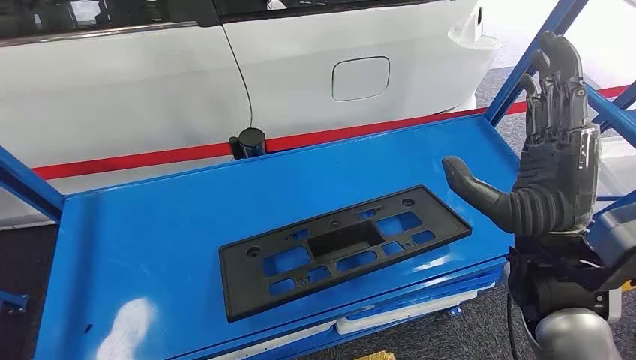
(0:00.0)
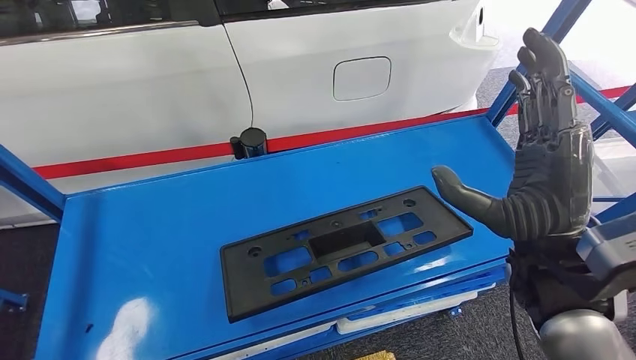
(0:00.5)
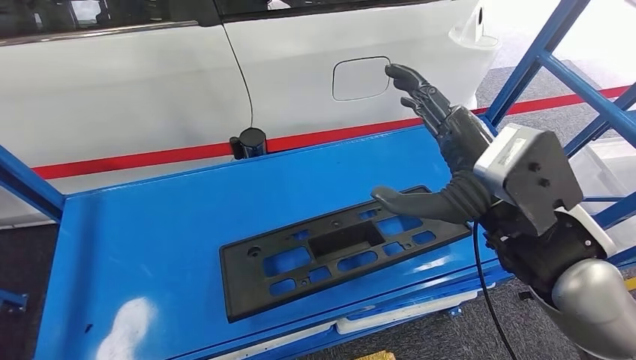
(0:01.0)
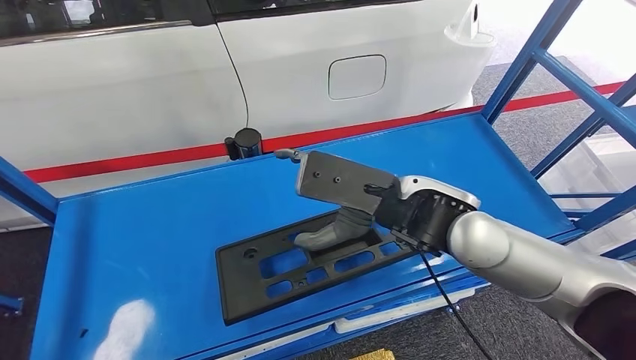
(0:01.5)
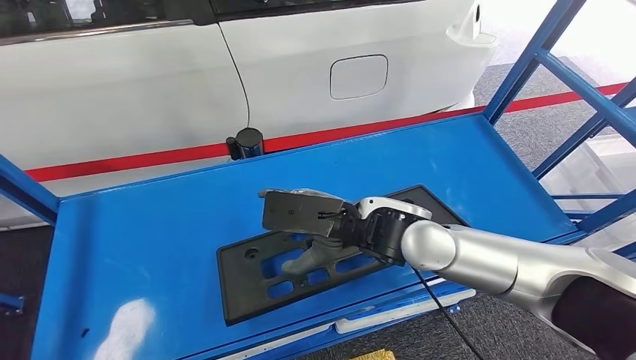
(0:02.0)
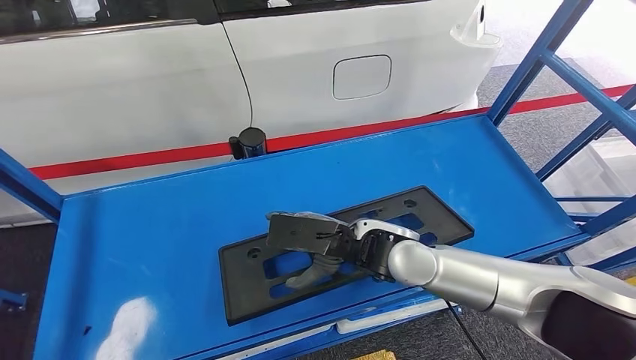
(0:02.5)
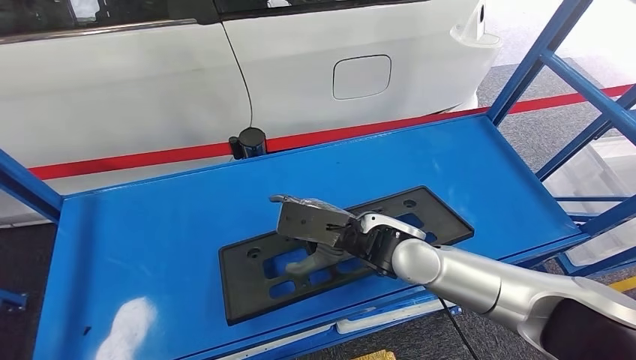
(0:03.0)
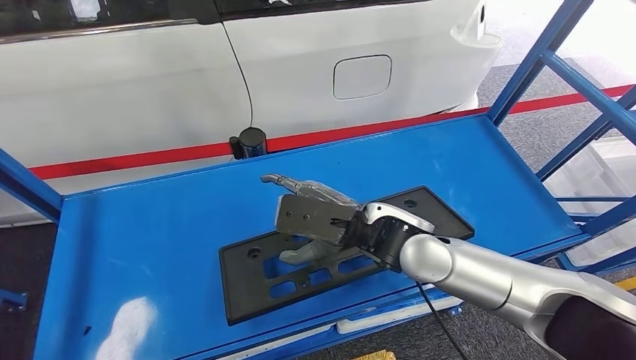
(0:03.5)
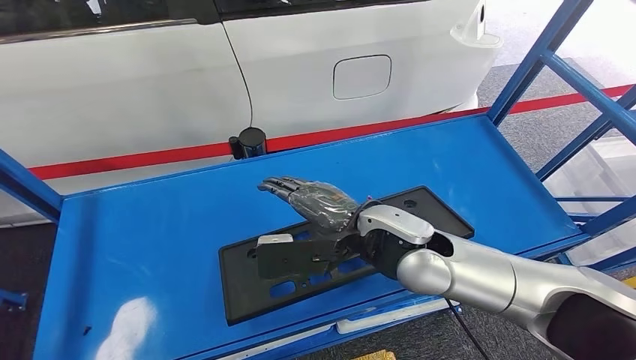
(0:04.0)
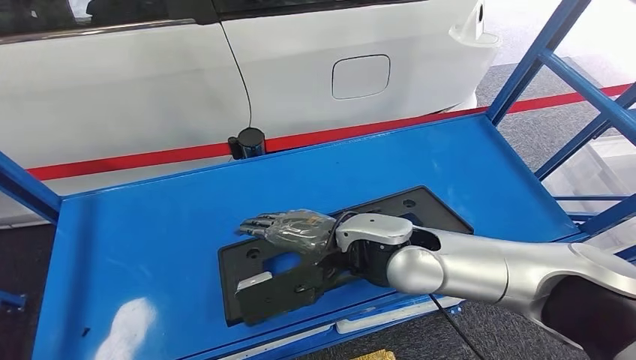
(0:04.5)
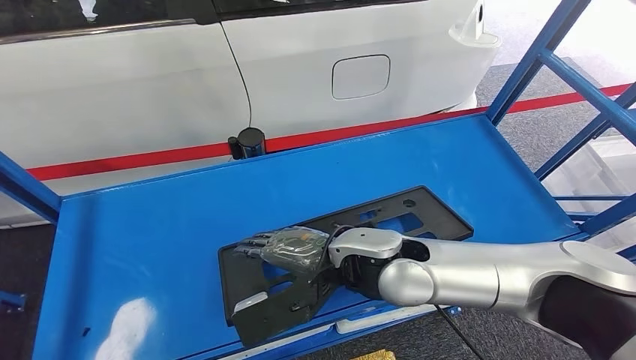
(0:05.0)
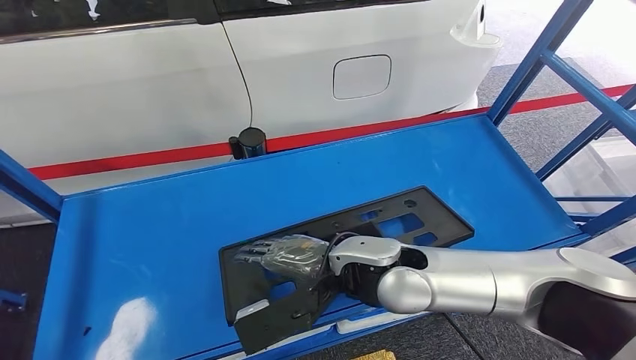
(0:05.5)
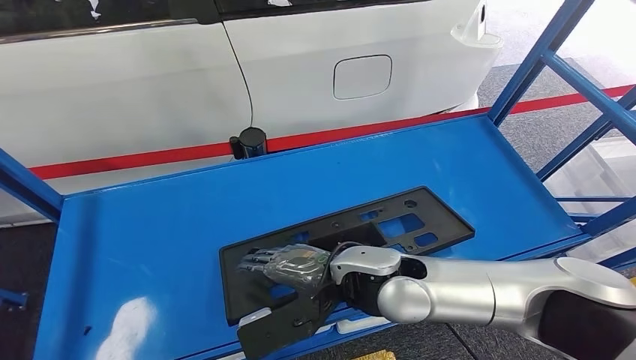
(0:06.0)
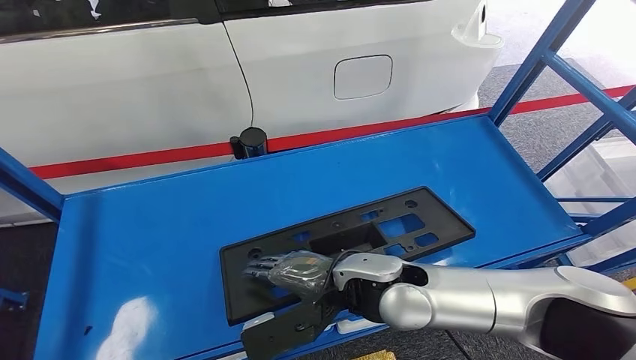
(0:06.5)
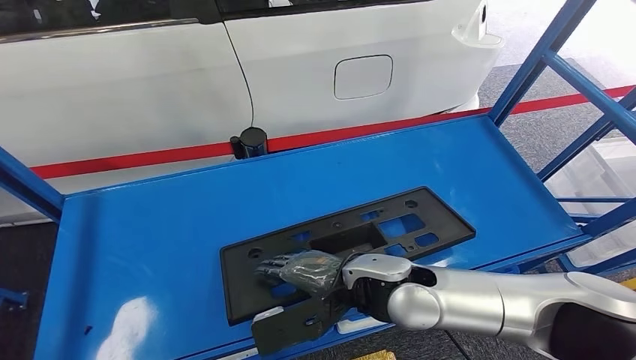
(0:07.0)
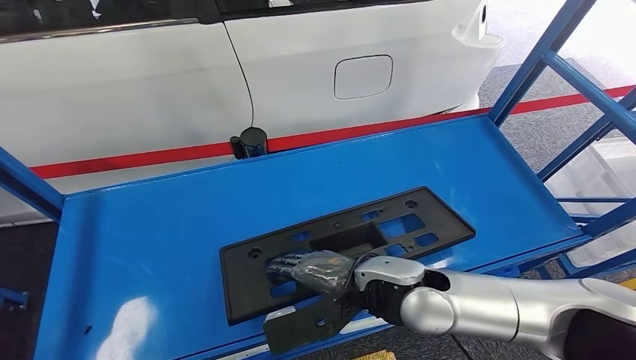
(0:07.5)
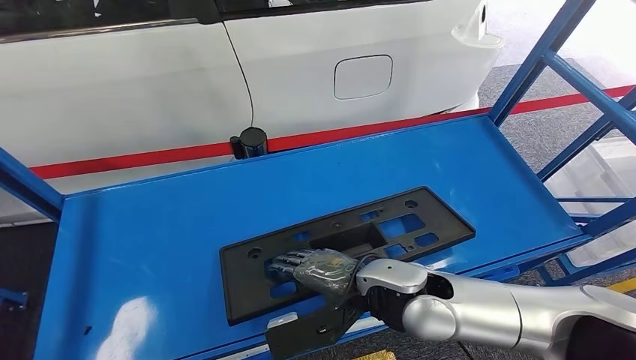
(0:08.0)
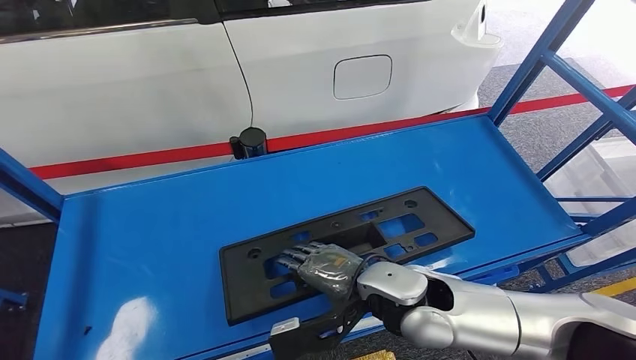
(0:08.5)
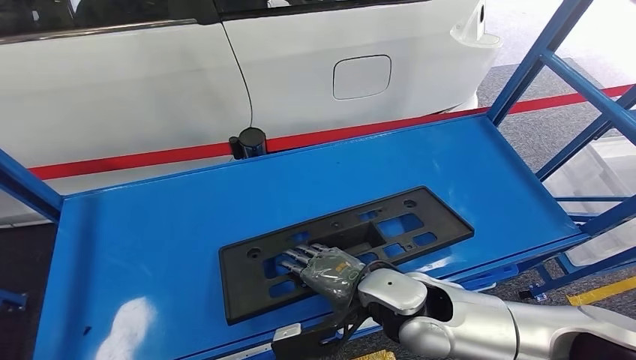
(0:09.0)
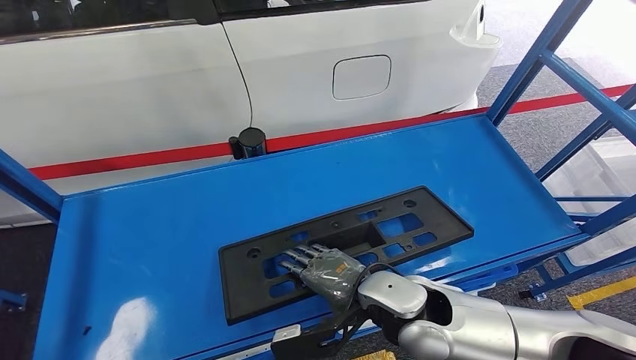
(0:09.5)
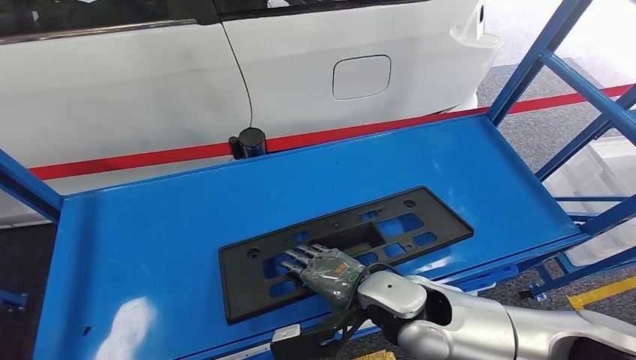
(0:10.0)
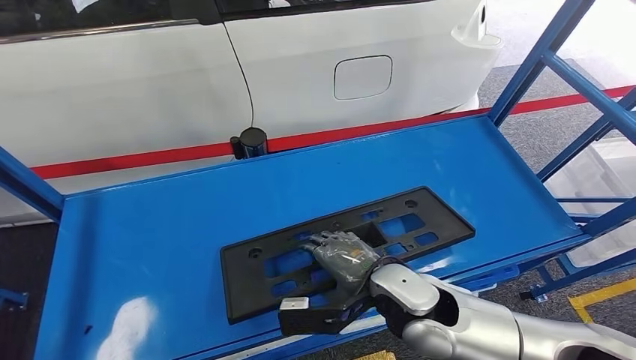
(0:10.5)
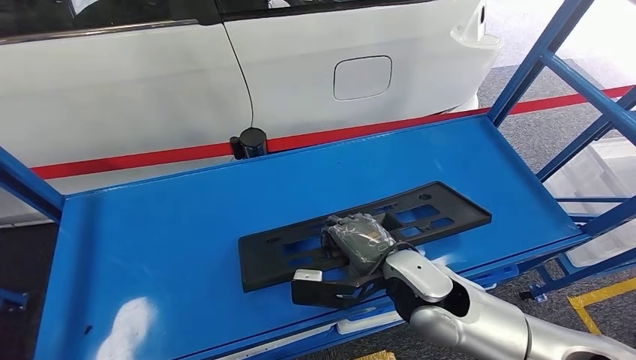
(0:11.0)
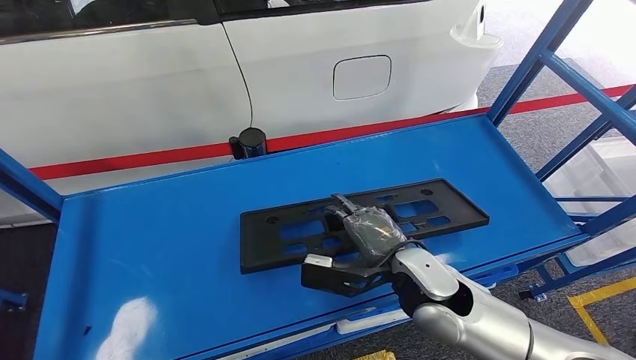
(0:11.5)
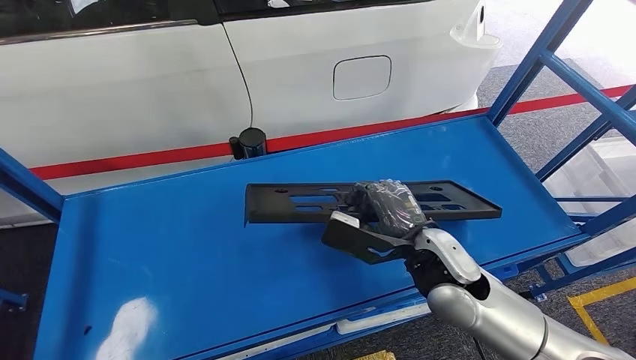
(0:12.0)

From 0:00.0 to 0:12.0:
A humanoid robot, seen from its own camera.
From 0:04.0 to 0:06.0: The right hand changes place by approximately 5 cm.
From 0:06.0 to 0:08.0: The hands make only small movements.
From 0:08.0 to 0:10.0: The hands move only a little.
From 0:10.0 to 0:12.0: The right hand goes some 5 cm to the right.

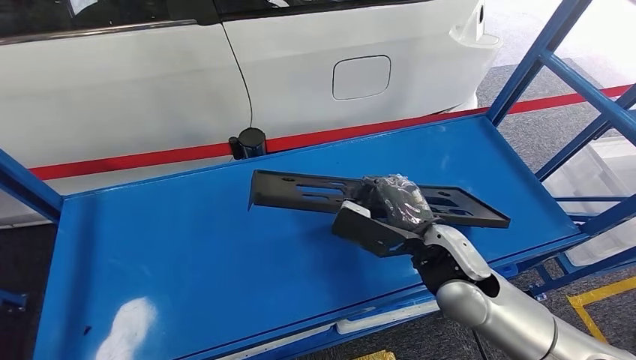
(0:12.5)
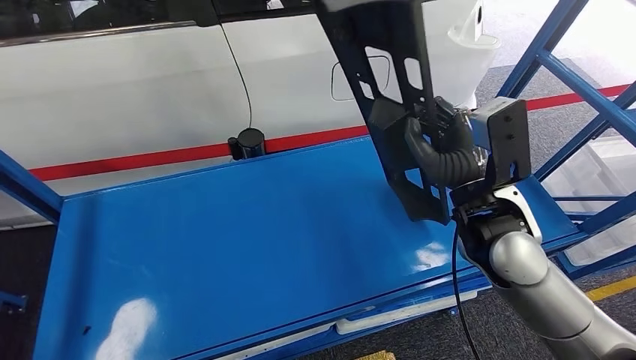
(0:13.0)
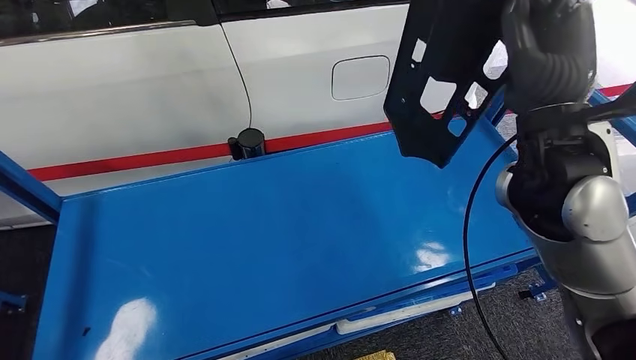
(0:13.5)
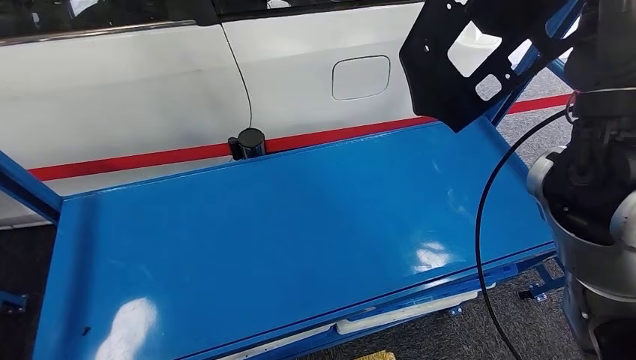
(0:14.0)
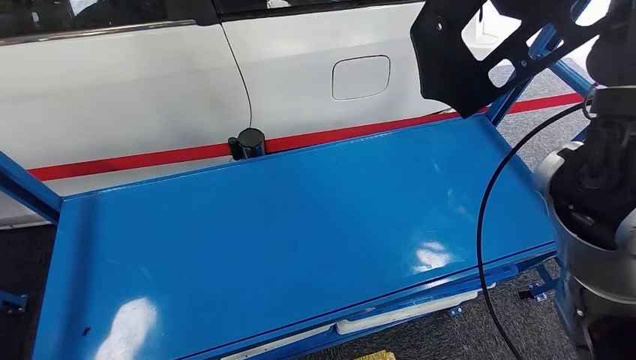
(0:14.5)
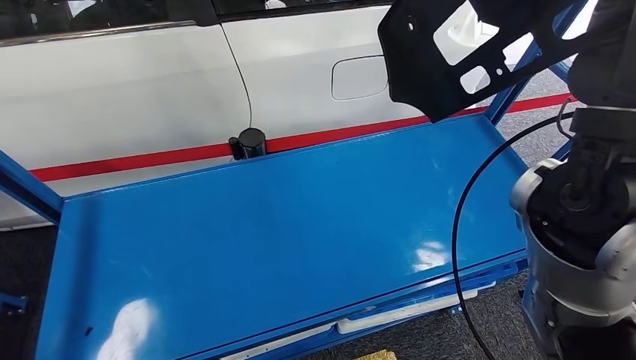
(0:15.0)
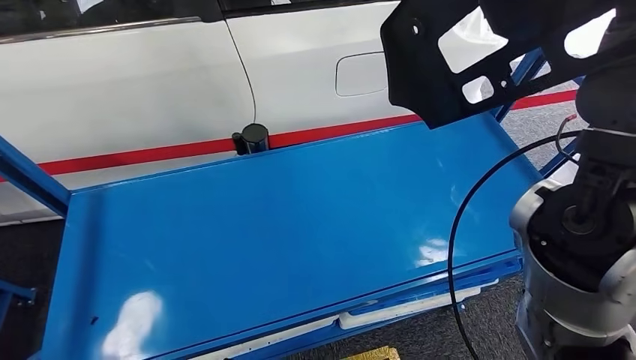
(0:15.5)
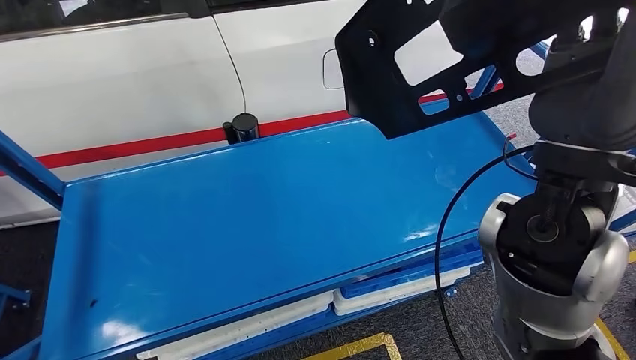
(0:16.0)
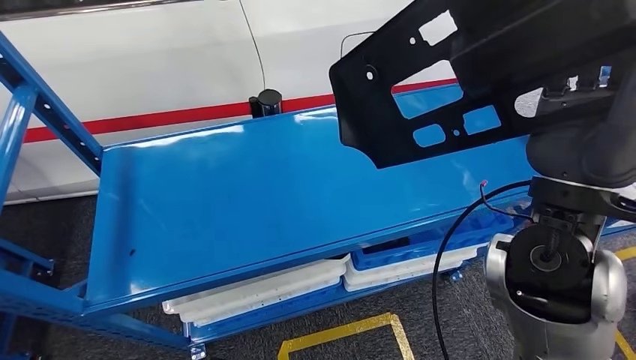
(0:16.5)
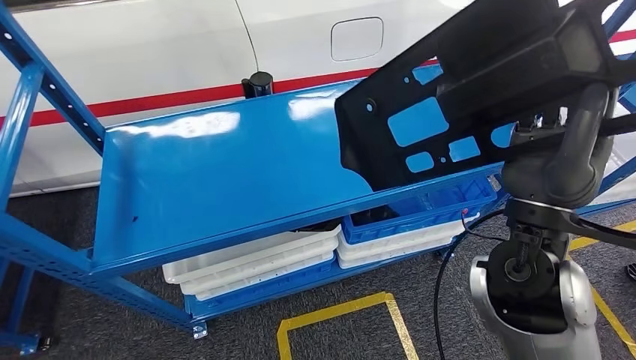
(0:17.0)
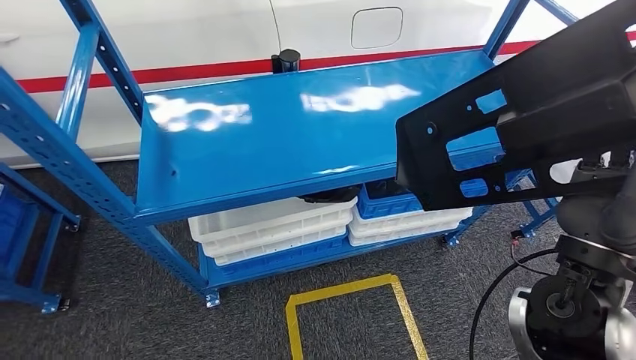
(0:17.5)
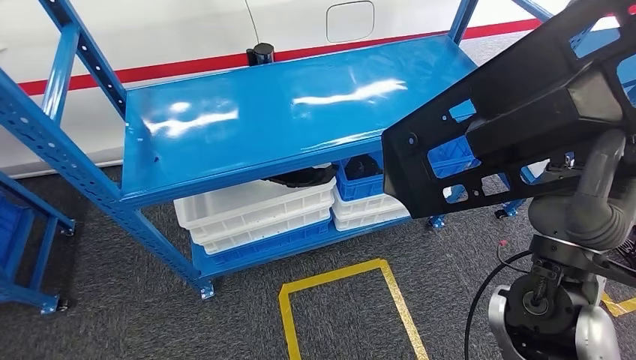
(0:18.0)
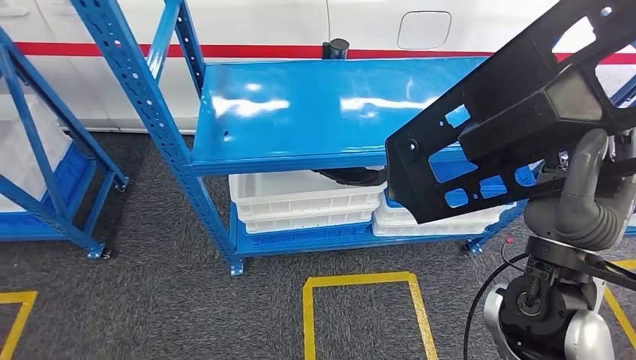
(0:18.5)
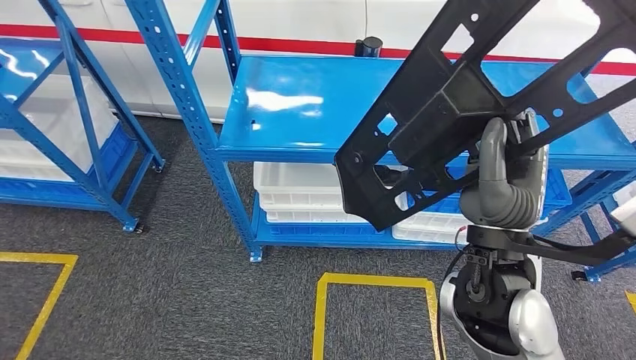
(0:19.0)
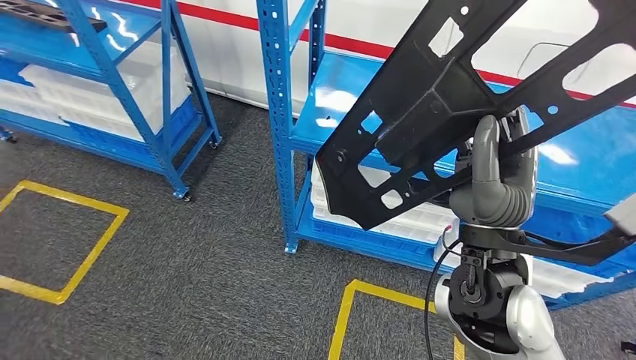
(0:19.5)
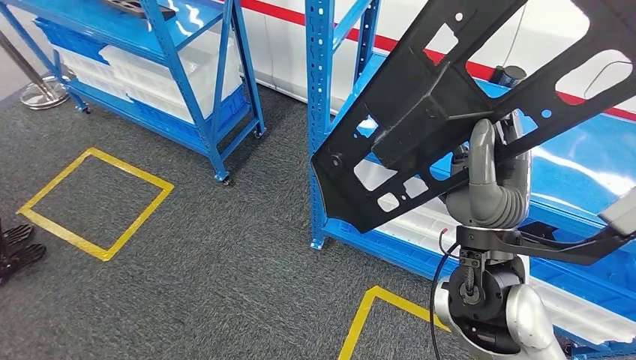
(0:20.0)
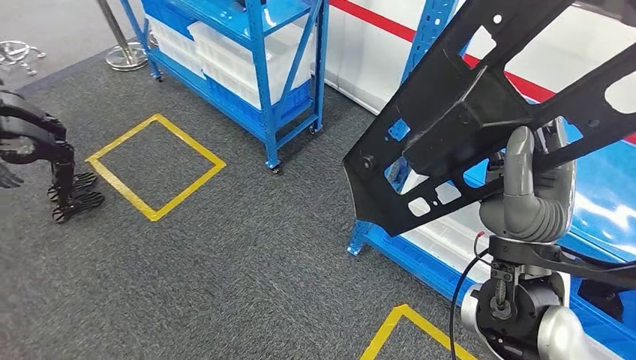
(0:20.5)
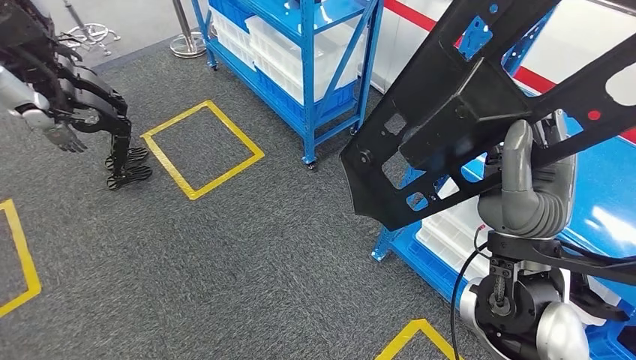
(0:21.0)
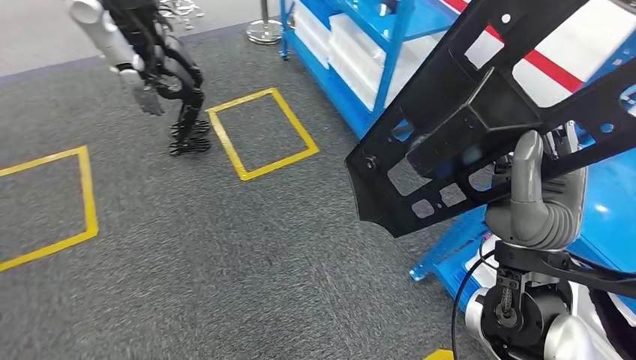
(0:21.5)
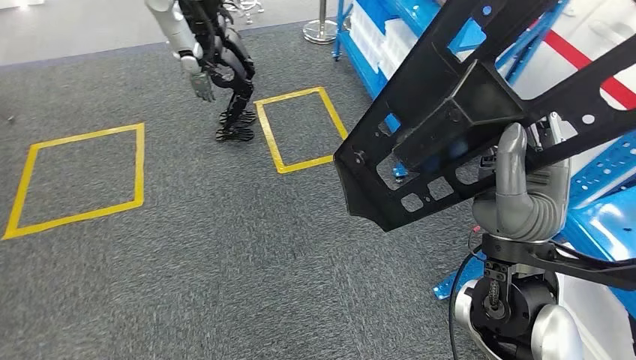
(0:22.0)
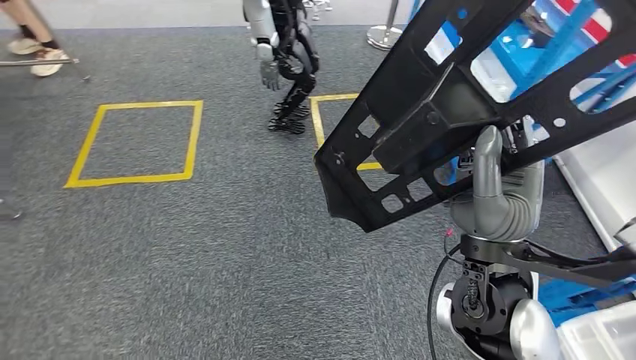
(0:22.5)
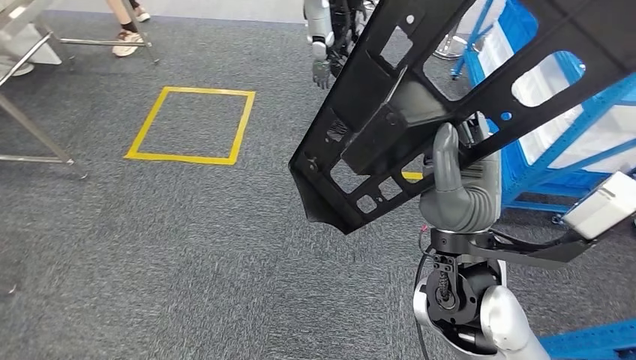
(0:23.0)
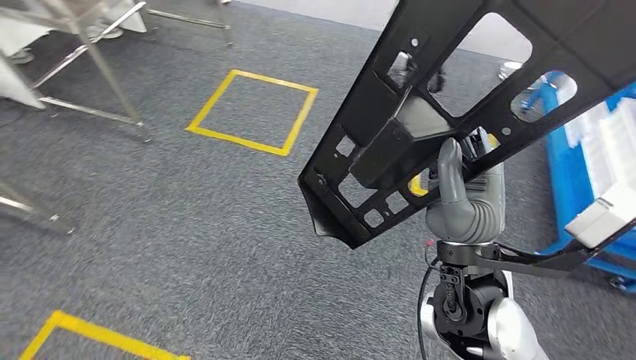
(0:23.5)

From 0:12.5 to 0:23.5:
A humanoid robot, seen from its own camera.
Step, from 0:12.5 to 0:19.0: Pick up the large material from the shelf.
